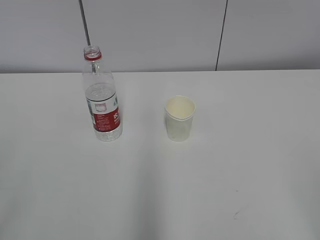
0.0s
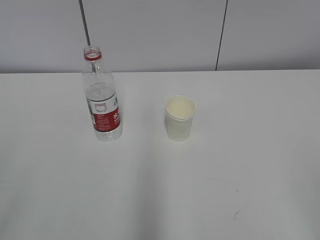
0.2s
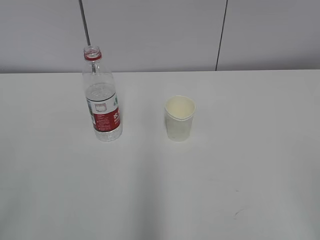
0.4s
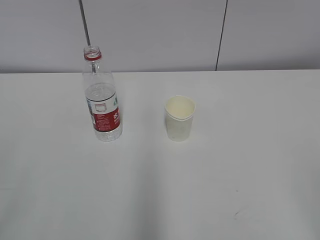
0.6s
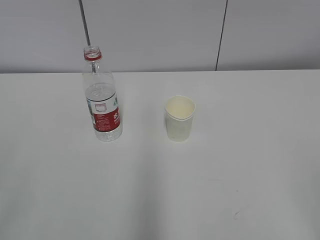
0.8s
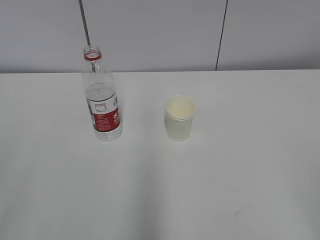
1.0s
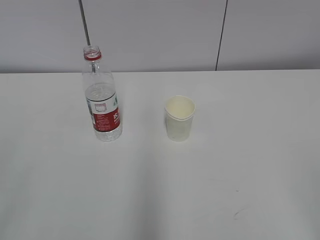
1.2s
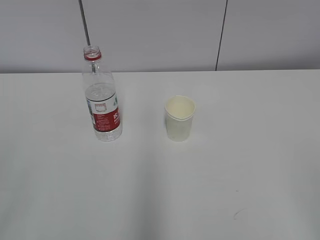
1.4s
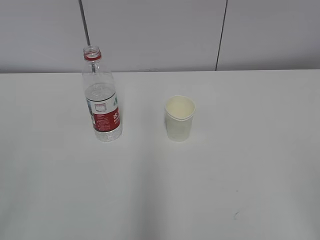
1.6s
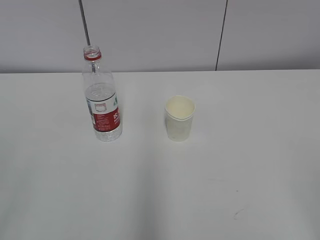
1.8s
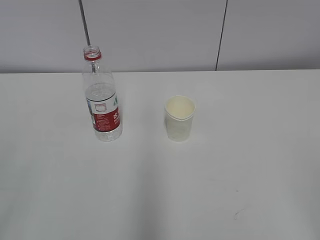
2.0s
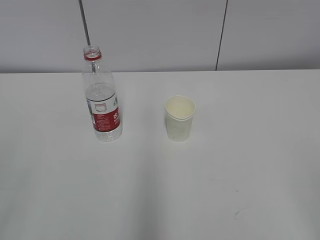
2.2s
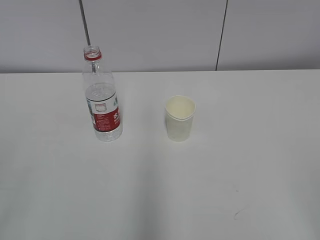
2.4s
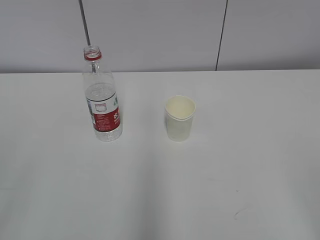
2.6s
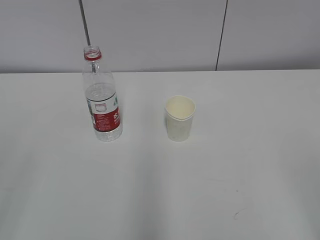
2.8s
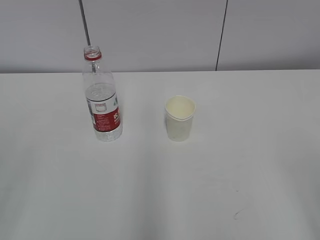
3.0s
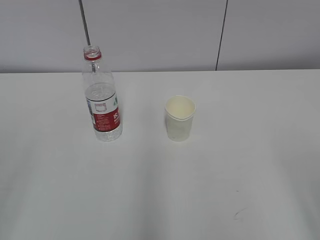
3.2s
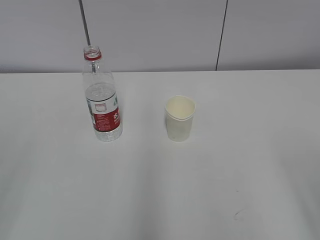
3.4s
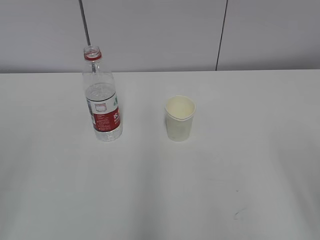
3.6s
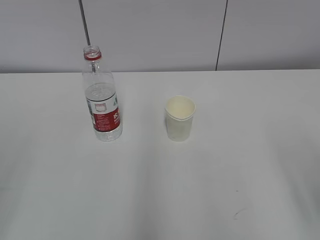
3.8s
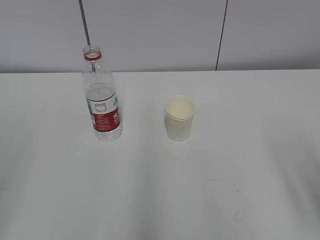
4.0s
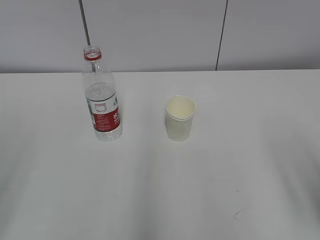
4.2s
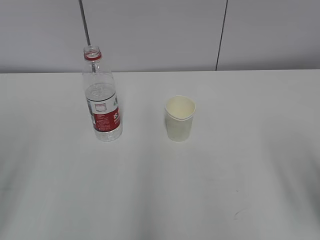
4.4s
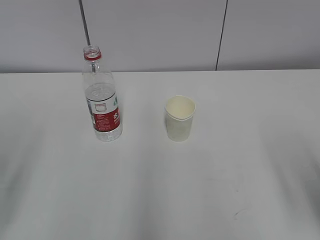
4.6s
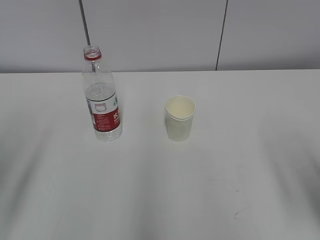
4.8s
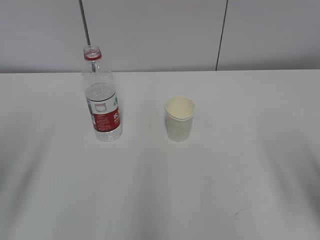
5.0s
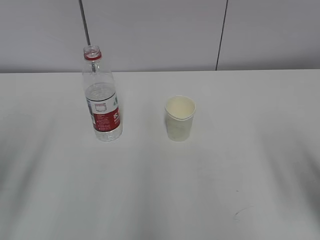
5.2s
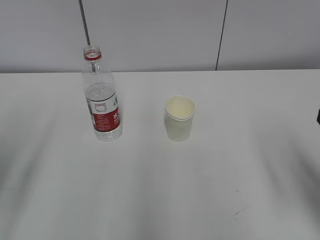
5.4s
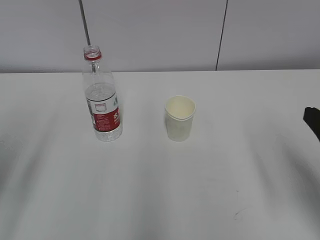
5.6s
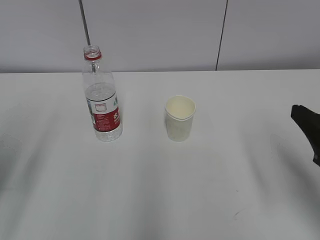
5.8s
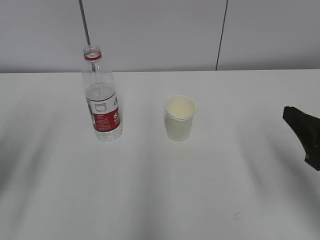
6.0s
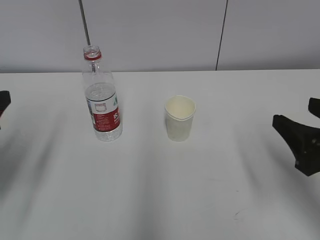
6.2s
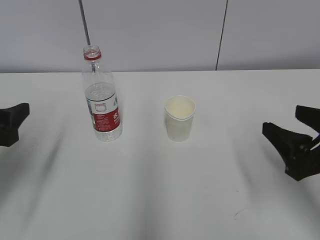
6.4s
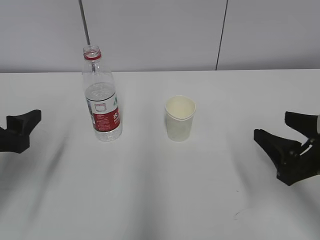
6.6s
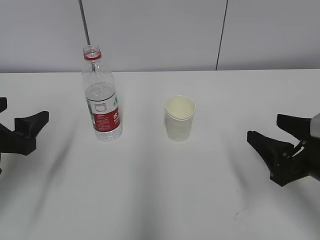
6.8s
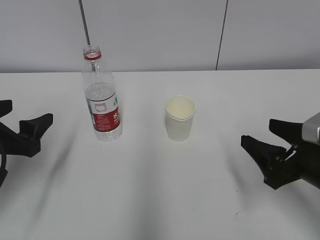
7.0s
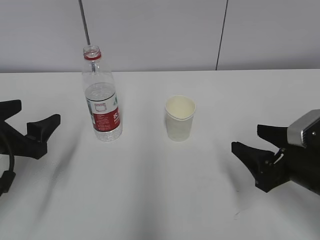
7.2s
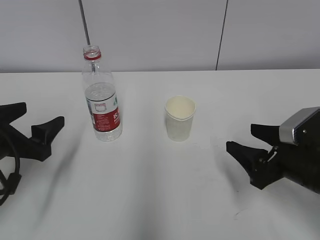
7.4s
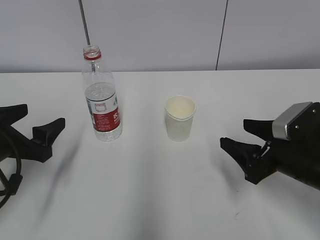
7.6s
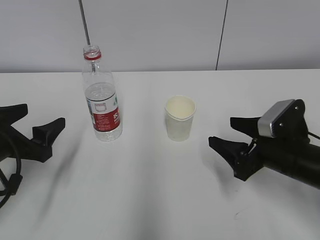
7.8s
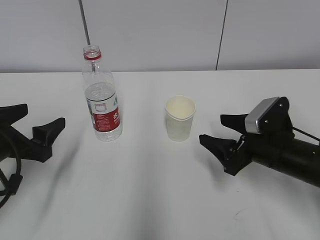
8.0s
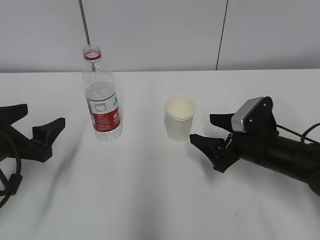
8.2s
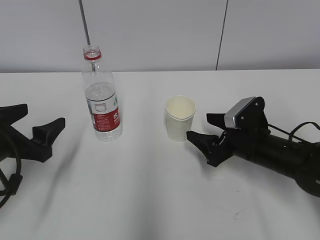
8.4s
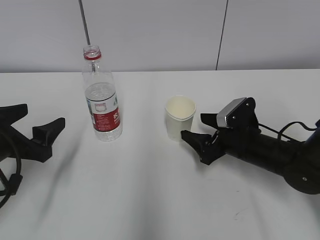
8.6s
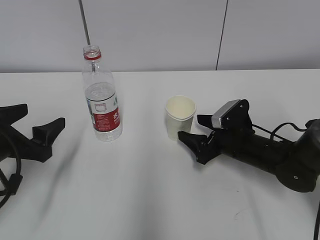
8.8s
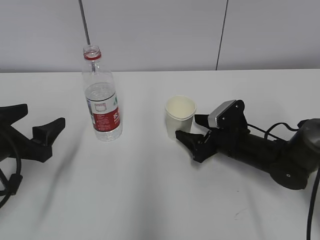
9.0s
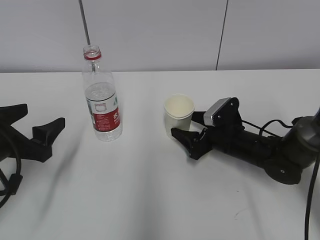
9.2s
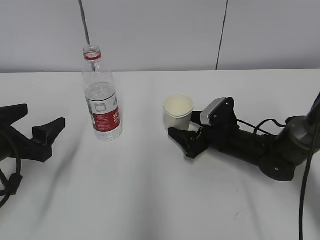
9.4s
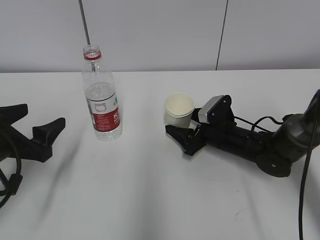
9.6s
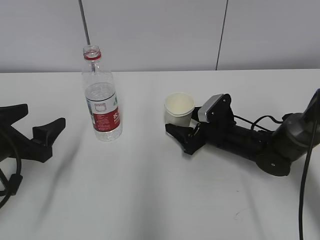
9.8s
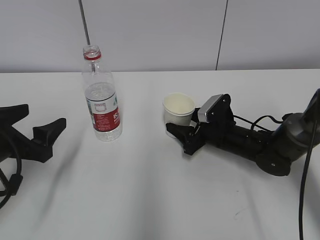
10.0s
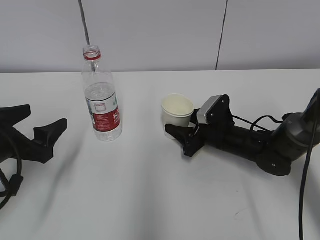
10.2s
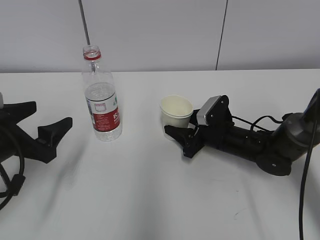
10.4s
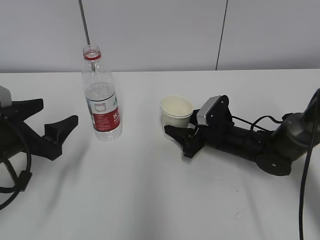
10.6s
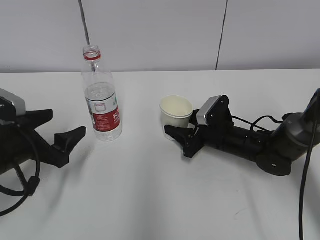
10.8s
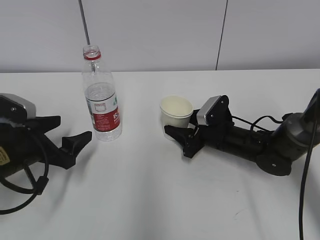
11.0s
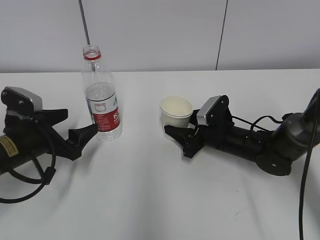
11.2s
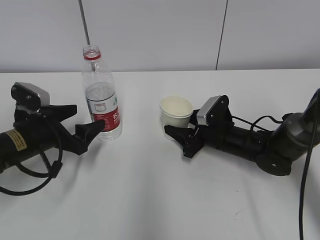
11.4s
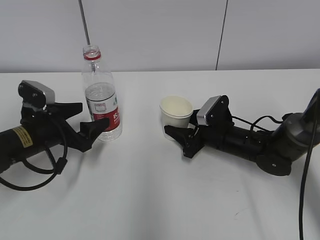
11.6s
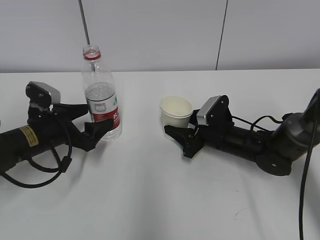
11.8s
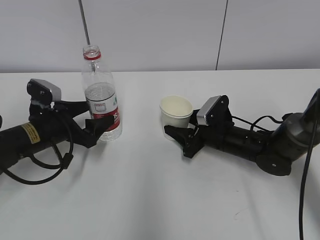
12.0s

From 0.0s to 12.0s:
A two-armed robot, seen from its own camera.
Step, from 0.0s to 10.8s: Grab the paper cup with the right hand.
Step, from 11.0s to 11.2s: Grab the water bottle with the left hand.
From 4.4s to 6.0s: The two grippers go about 10 cm forward.
From 6.0s to 7.6s: Both grippers travel together downward and forward, roughly 10 cm.
From 7.6s to 9.0s: The right gripper shifts some 15 cm forward and downward.
From 9.0s to 10.4s: The right gripper closes its fingers.
From 10.4s to 12.0s: The left gripper shifts about 10 cm forward and downward.

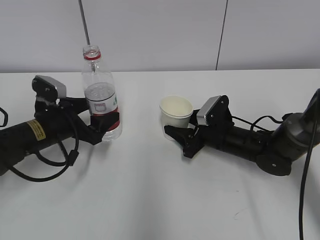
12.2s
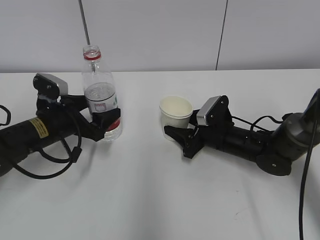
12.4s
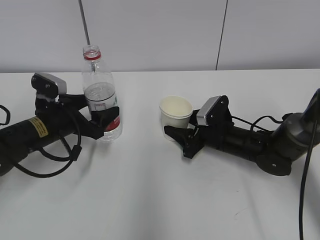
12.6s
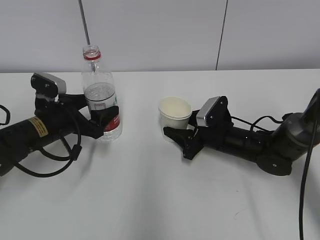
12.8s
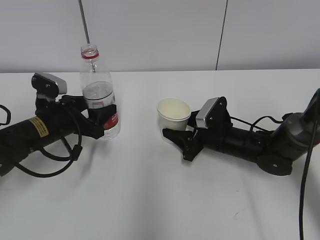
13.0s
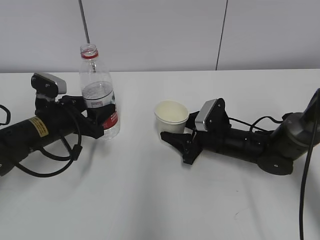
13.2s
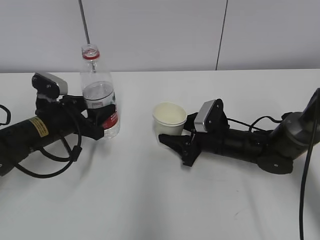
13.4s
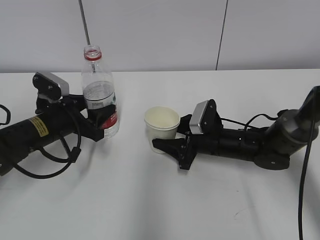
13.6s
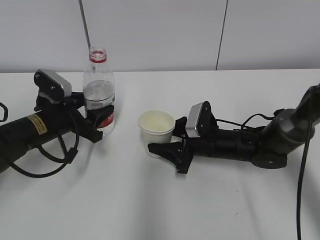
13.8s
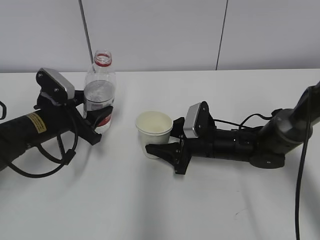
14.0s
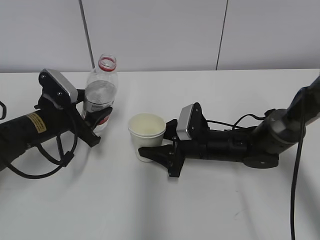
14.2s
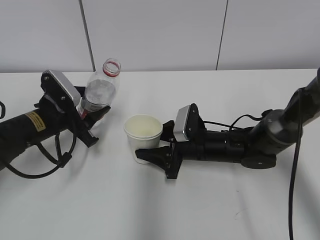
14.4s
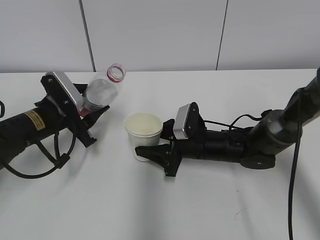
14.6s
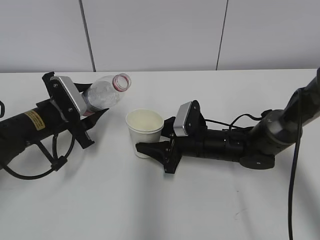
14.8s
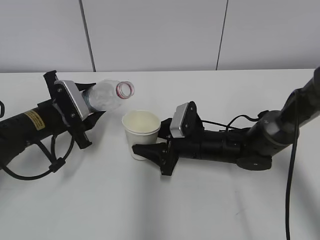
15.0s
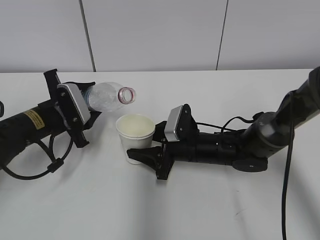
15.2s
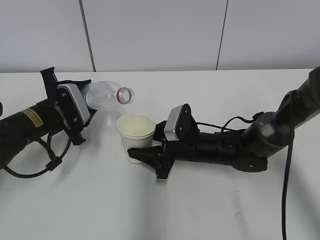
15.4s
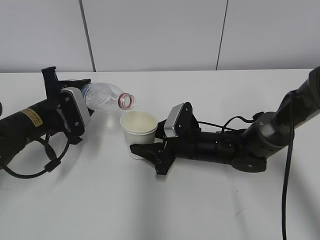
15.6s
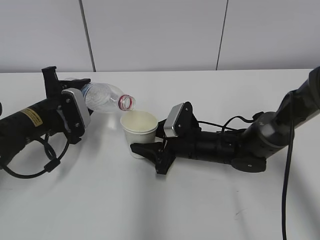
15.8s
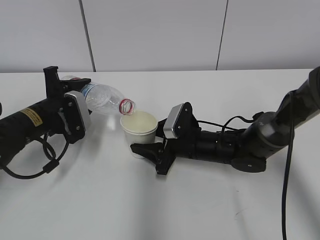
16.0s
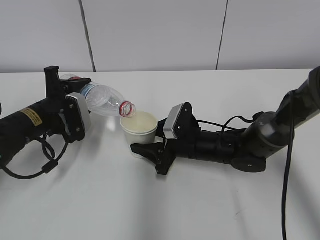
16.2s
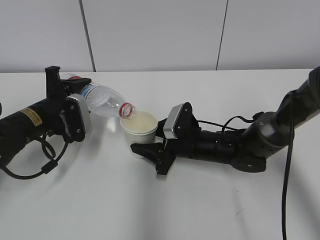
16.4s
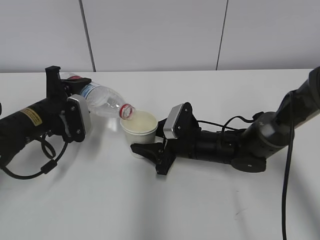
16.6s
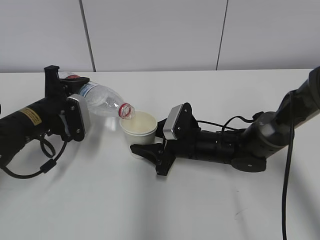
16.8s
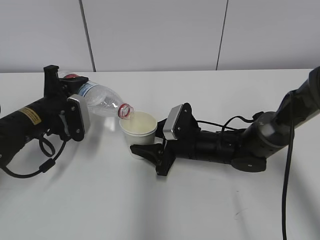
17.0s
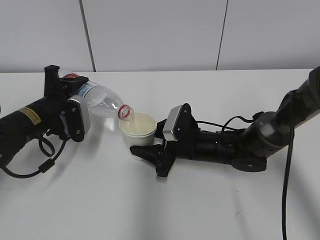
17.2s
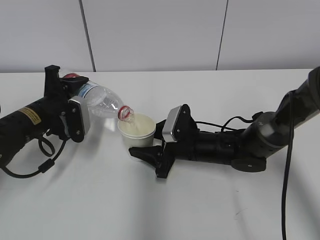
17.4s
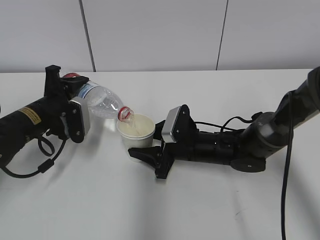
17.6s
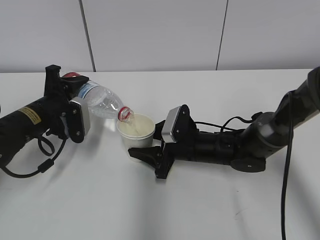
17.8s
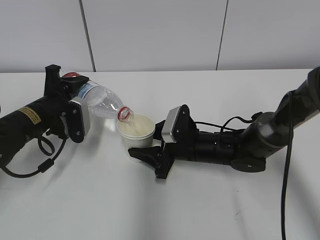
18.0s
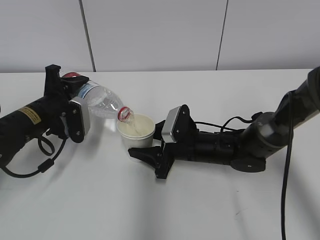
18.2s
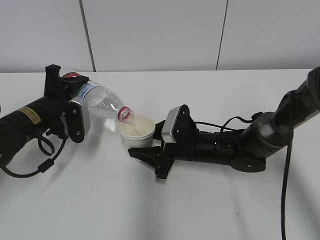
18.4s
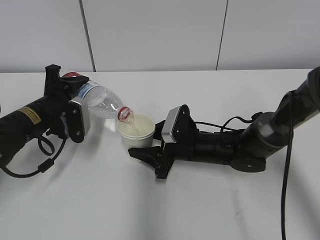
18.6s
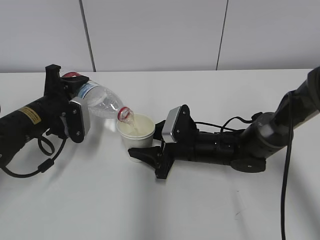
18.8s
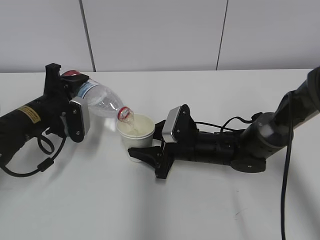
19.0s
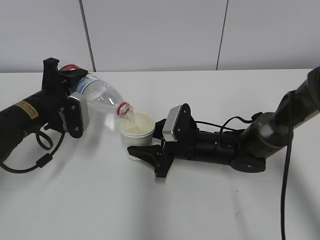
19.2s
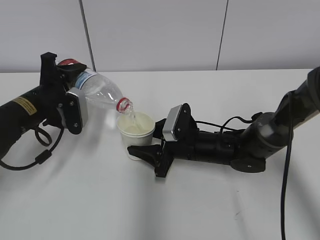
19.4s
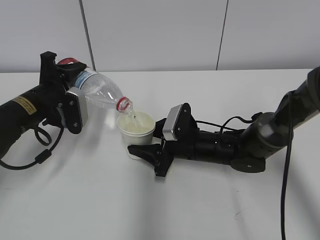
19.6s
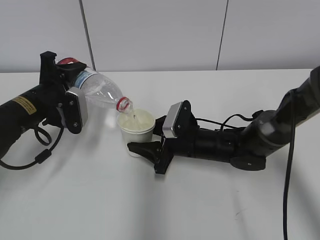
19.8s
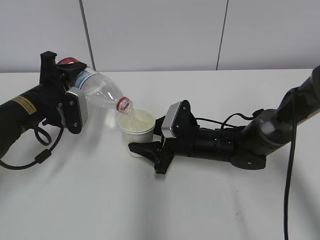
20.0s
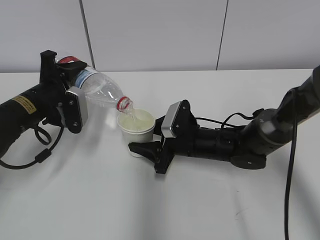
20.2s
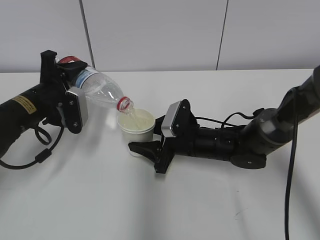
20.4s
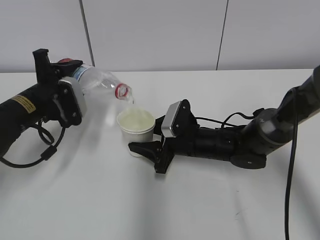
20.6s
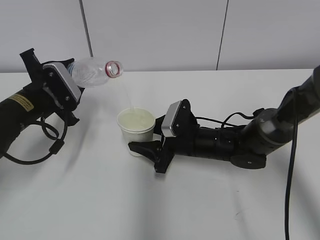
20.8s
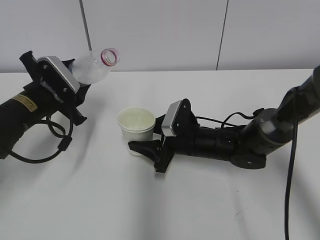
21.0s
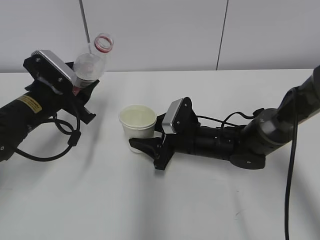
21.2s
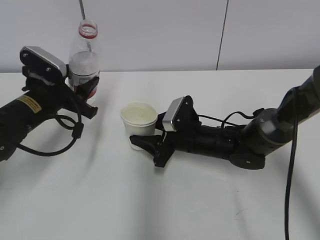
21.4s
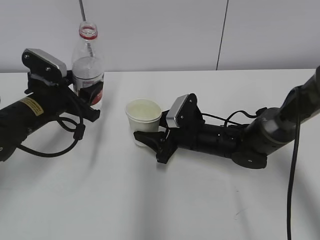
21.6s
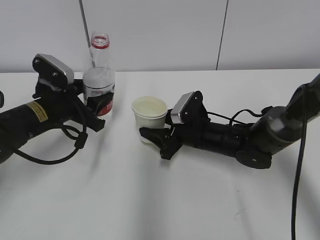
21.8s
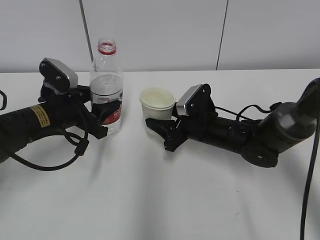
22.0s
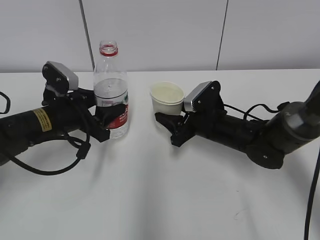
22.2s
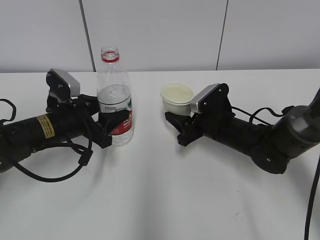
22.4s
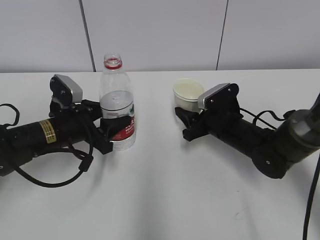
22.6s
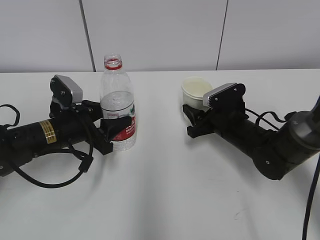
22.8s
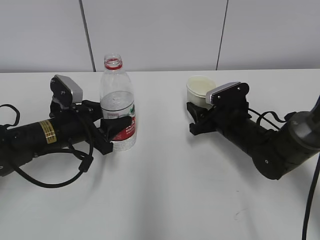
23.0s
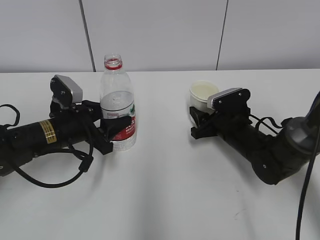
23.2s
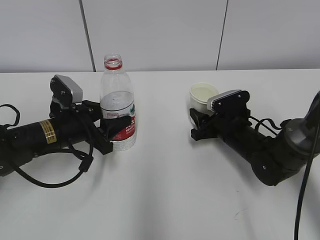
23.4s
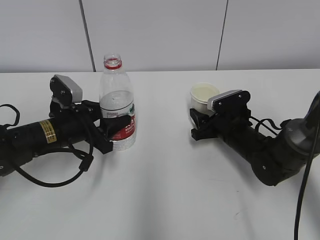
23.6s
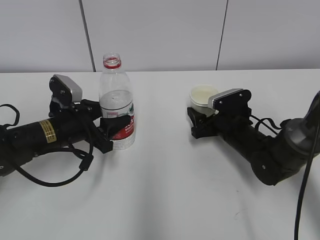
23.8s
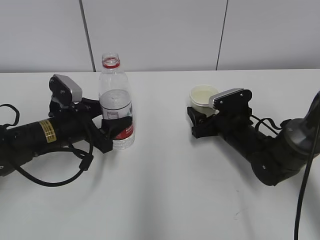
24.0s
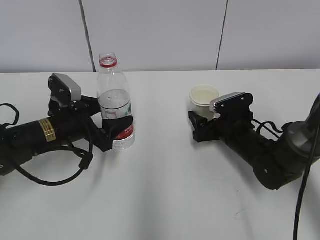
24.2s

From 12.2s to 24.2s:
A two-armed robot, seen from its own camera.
Step, from 12.2s to 14.0s: Lift the paper cup with the right hand.
Step, from 14.2s to 17.2s: Fill water with the right hand.
Step, from 14.2s to 17.2s: Pour water with the left hand.
Step, from 17.4s to 18.4s: Collect water with the left hand.
Step, from 19.8s to 20.0s: Place the water bottle with the left hand.
From 12.2s to 13.8s: The left gripper closes up.
From 16.6s to 19.8s: There are only small adjustments of the grippers.
From 21.2s to 22.6s: The right gripper is displaced to the right by approximately 5 cm. Meanwhile the left gripper ends up roughly 5 cm from where it was.
From 22.6s to 24.2s: The left gripper opens. The right gripper opens up.
